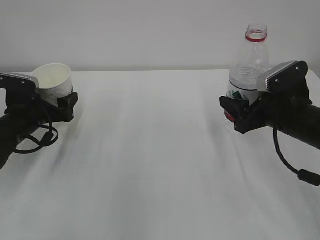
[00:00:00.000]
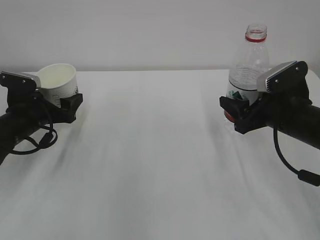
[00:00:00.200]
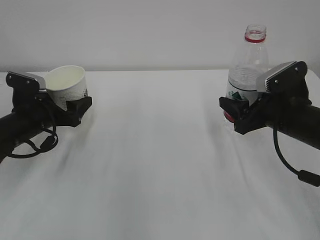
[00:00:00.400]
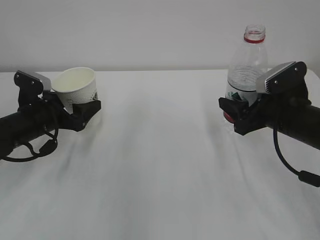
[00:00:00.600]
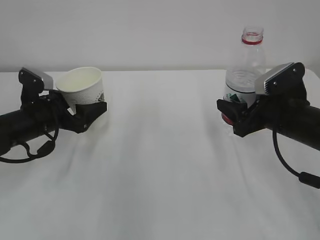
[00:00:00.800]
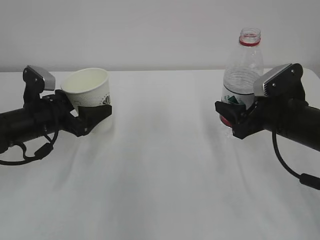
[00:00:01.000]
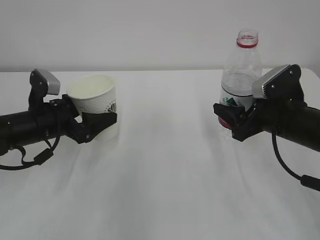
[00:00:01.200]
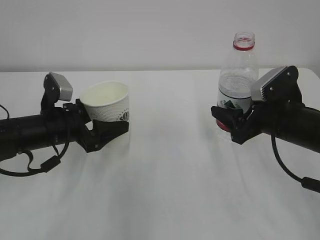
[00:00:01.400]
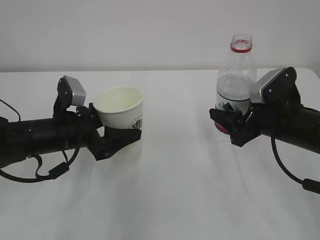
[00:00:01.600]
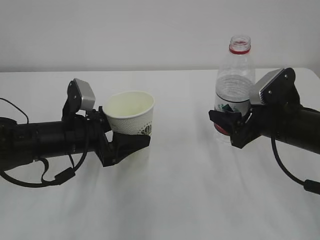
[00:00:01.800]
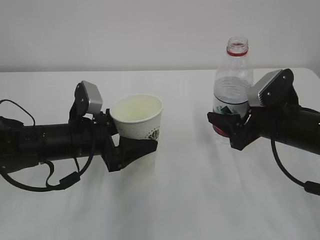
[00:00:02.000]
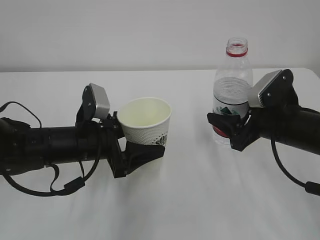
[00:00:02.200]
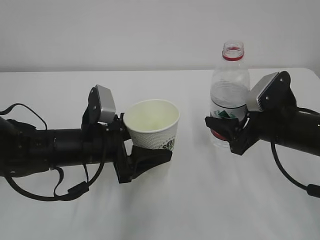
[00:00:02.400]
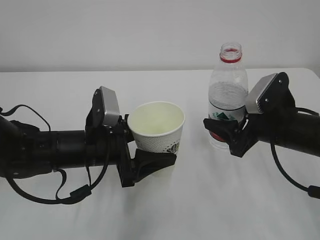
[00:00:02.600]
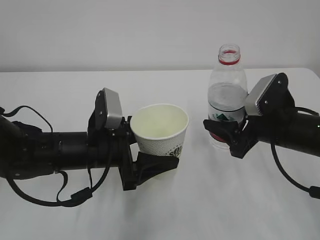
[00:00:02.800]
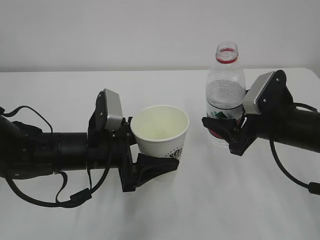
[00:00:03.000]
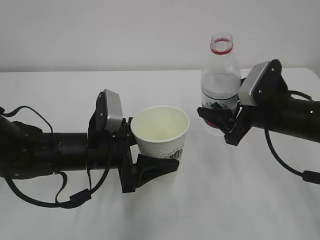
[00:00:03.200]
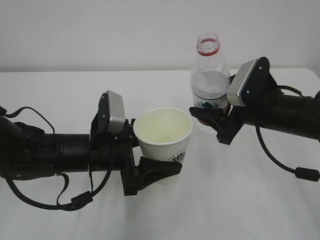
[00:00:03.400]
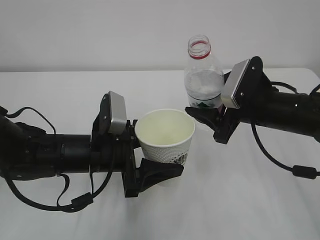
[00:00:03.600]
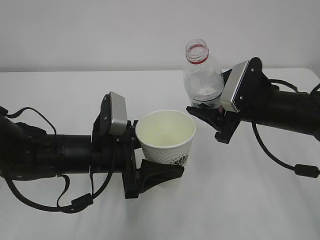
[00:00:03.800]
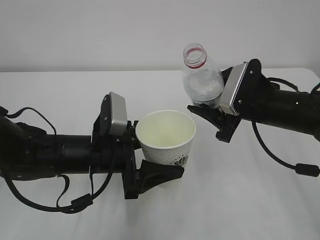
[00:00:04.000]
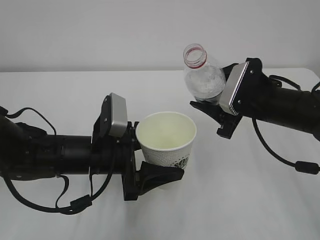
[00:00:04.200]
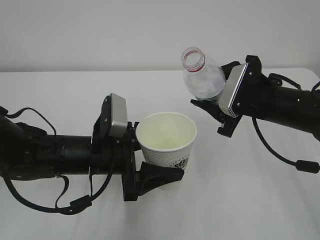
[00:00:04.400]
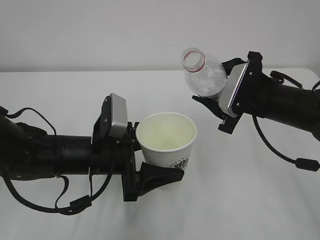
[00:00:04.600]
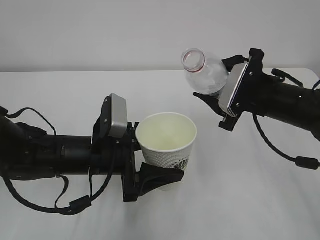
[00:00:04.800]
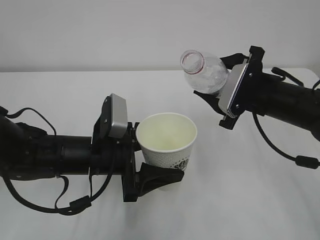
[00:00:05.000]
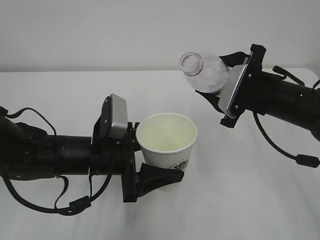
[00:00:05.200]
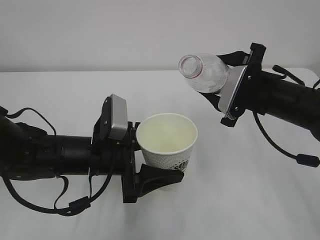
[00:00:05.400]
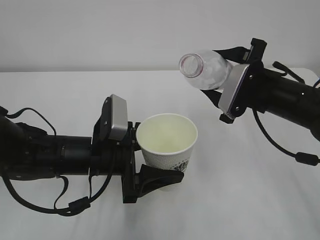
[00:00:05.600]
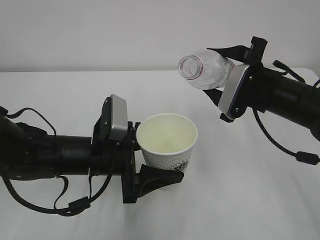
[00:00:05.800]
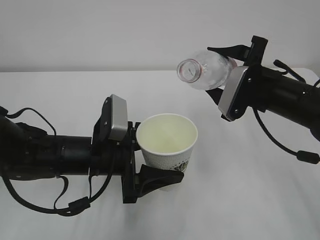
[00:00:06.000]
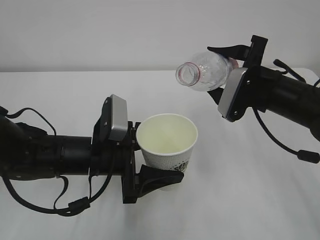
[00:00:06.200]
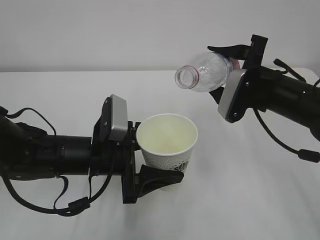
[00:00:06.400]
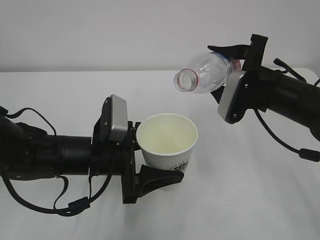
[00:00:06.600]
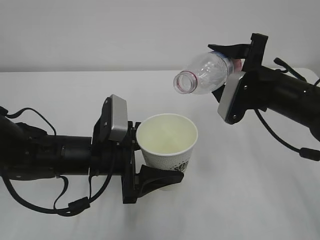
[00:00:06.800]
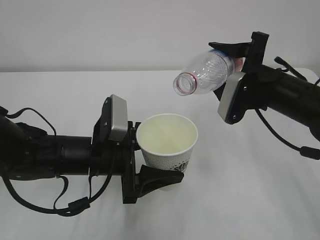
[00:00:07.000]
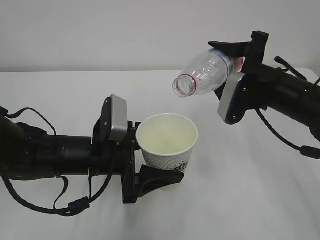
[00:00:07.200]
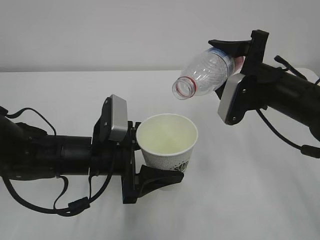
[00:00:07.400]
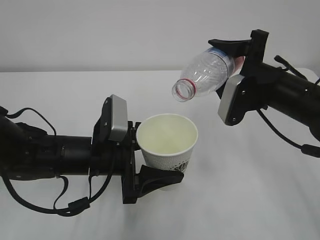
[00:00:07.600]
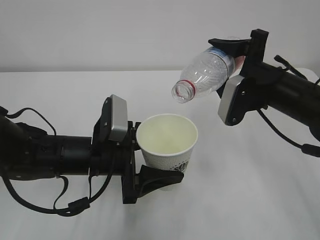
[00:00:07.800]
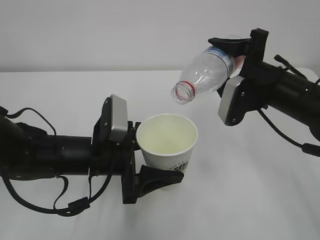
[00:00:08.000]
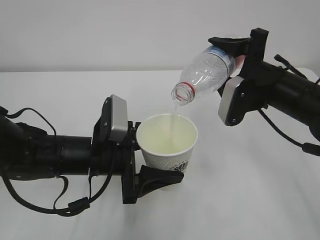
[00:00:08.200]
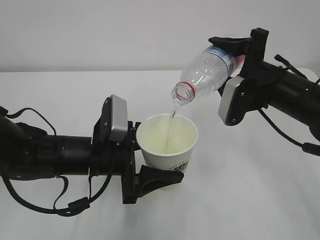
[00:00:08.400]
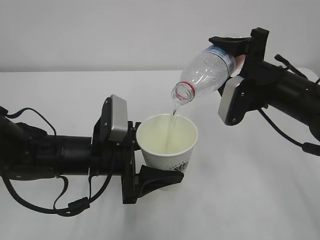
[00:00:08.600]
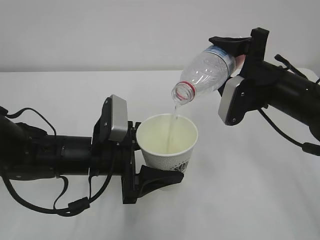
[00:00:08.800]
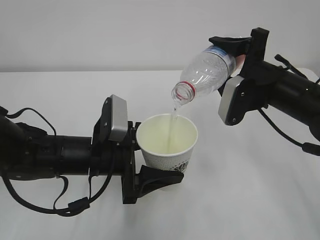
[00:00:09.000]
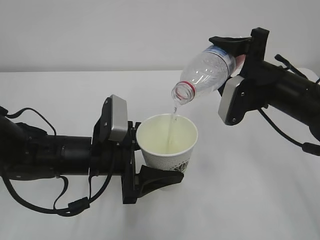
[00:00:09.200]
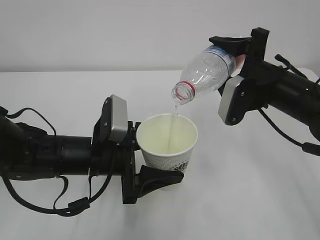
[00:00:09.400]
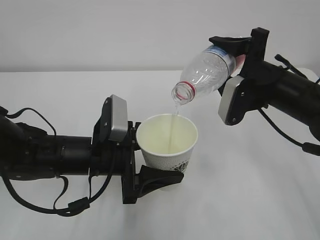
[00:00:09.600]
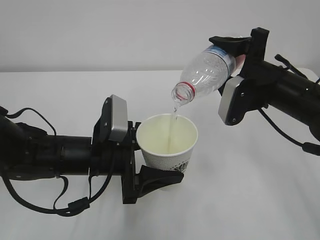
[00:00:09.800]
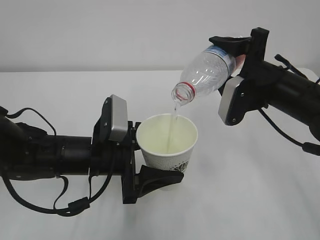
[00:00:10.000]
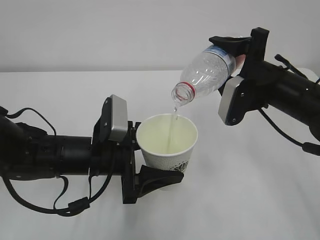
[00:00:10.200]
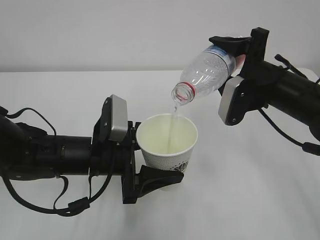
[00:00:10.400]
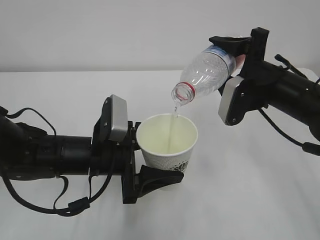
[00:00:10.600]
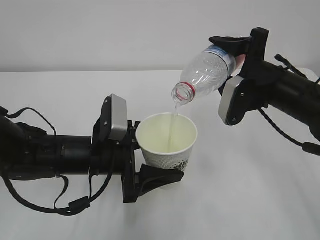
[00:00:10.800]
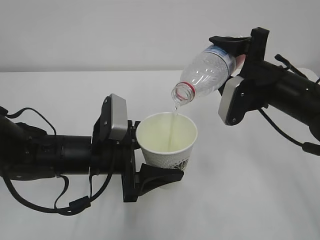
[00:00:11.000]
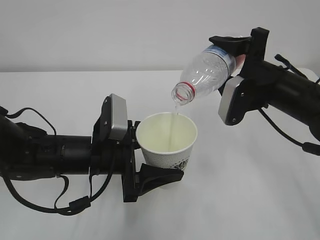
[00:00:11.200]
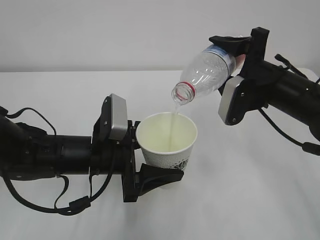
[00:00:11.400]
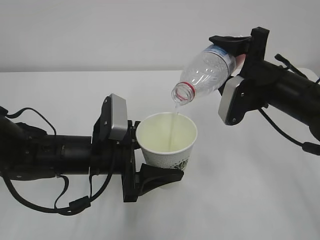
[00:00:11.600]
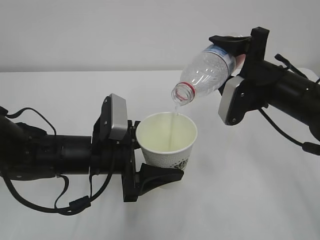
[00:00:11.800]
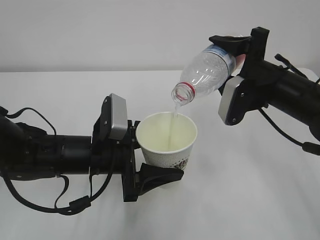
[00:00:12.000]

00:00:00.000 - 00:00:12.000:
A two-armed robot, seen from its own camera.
00:00:00.000 - 00:00:01.600: The left gripper goes approximately 10 cm to the right and backward.
00:00:01.600 - 00:00:03.000: The left gripper travels to the right by approximately 5 cm.
00:00:06.000 - 00:00:07.600: The grippers stay close to where they were, moving slightly.
00:00:07.600 - 00:00:10.400: Both grippers stay put.
00:00:10.400 - 00:00:12.000: Neither gripper changes place.

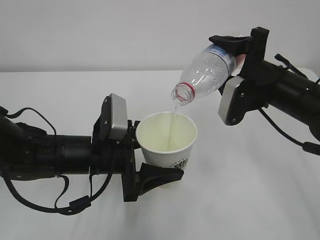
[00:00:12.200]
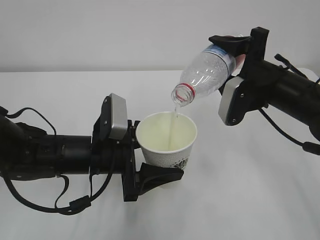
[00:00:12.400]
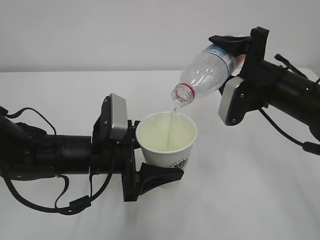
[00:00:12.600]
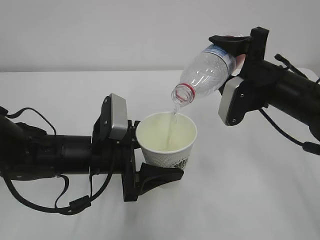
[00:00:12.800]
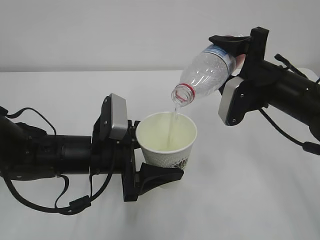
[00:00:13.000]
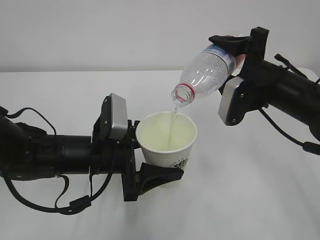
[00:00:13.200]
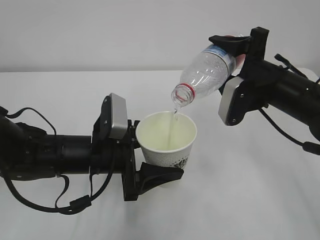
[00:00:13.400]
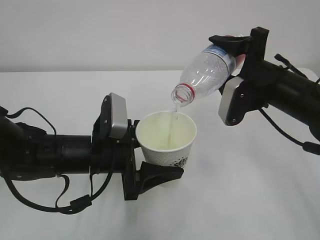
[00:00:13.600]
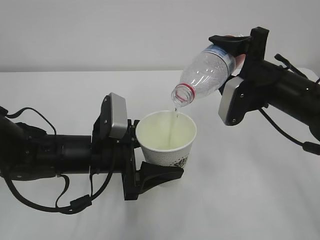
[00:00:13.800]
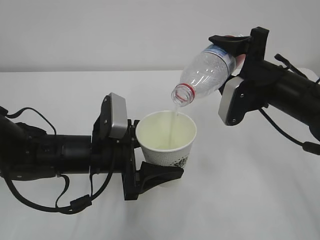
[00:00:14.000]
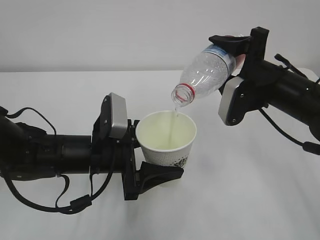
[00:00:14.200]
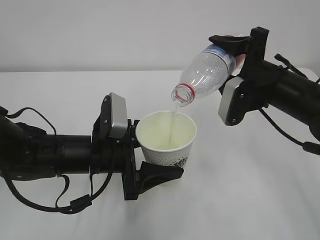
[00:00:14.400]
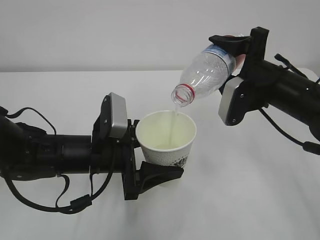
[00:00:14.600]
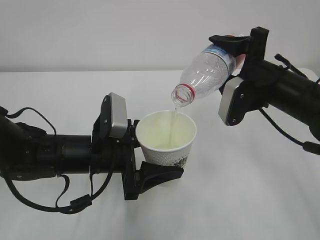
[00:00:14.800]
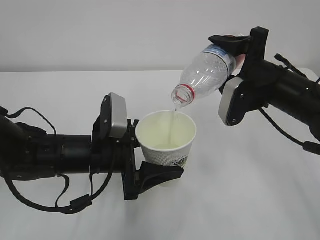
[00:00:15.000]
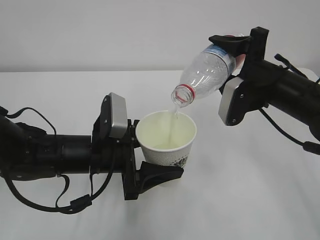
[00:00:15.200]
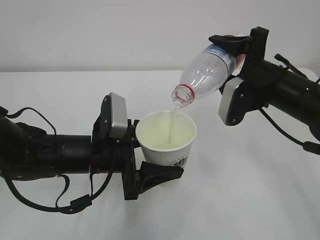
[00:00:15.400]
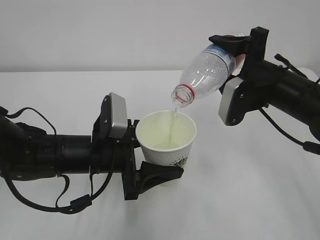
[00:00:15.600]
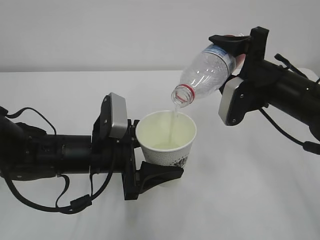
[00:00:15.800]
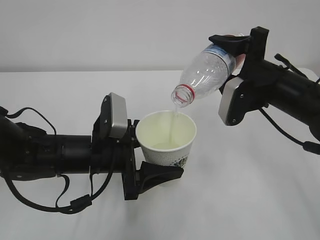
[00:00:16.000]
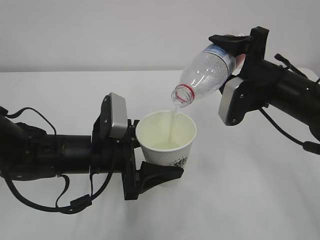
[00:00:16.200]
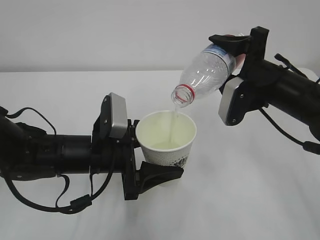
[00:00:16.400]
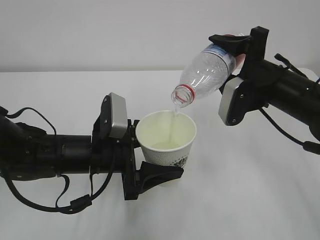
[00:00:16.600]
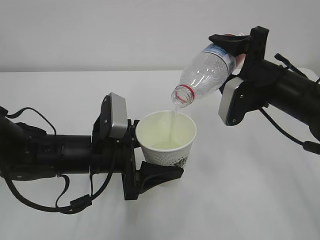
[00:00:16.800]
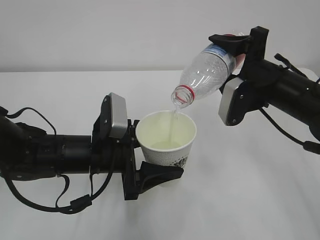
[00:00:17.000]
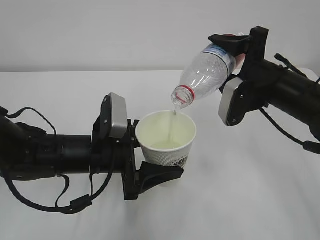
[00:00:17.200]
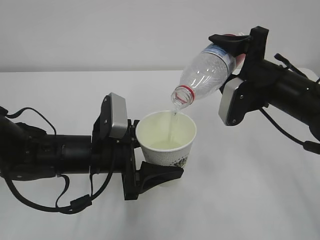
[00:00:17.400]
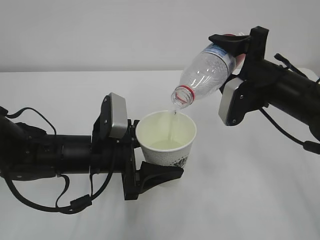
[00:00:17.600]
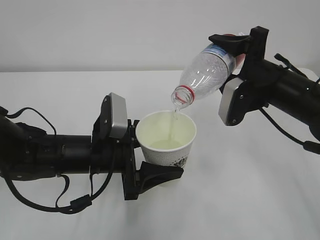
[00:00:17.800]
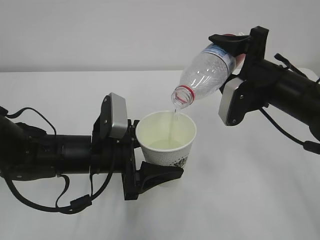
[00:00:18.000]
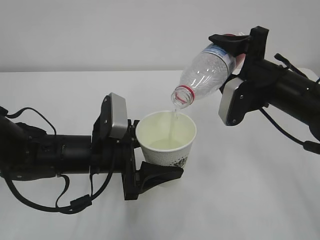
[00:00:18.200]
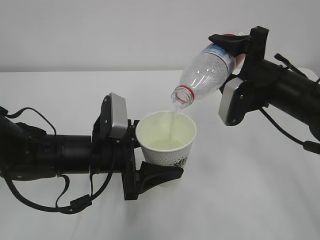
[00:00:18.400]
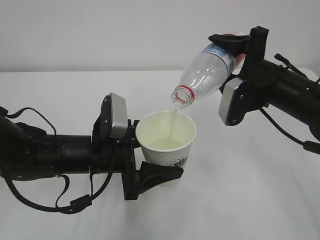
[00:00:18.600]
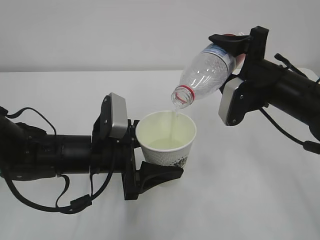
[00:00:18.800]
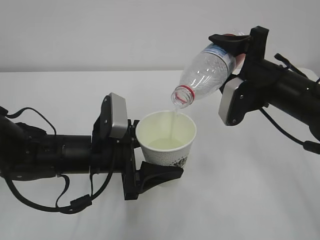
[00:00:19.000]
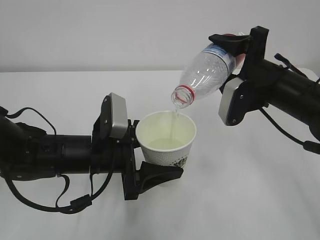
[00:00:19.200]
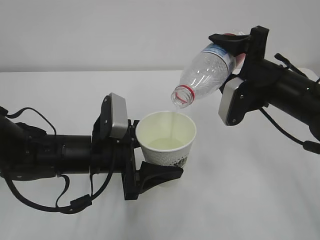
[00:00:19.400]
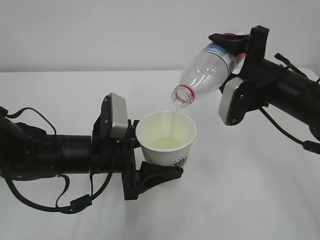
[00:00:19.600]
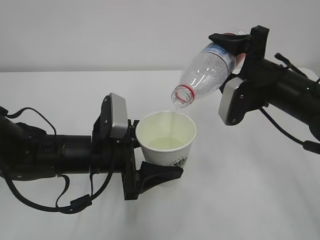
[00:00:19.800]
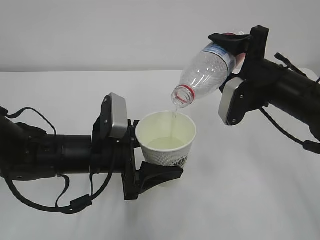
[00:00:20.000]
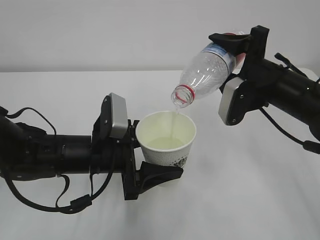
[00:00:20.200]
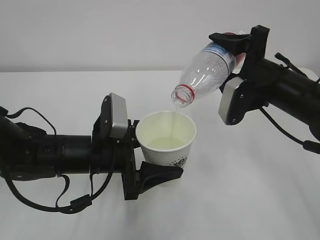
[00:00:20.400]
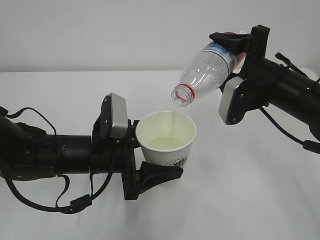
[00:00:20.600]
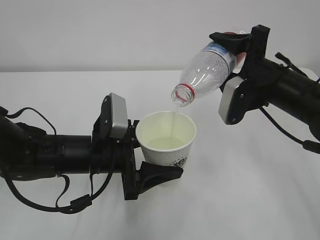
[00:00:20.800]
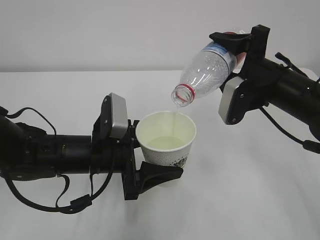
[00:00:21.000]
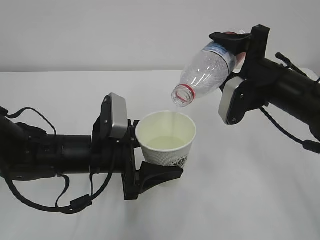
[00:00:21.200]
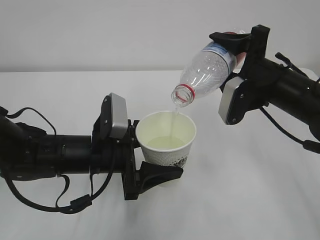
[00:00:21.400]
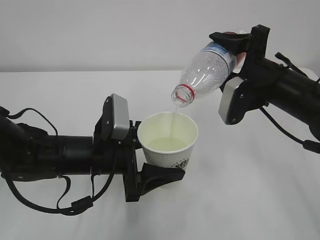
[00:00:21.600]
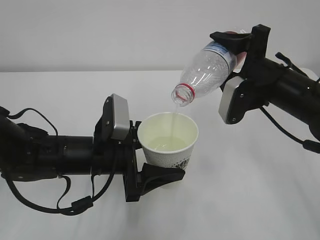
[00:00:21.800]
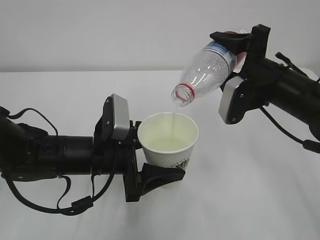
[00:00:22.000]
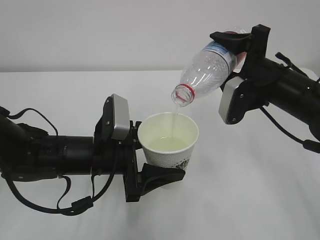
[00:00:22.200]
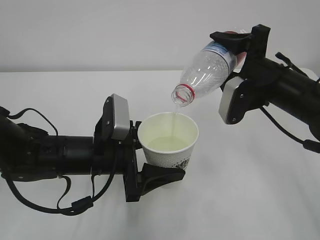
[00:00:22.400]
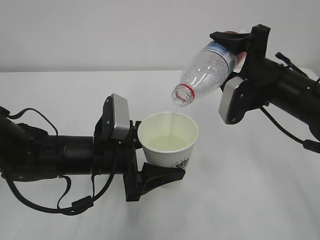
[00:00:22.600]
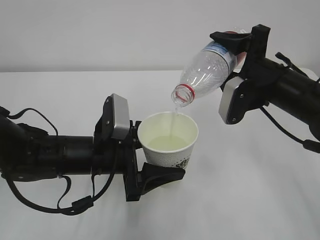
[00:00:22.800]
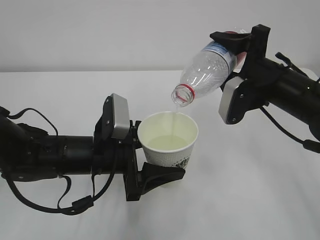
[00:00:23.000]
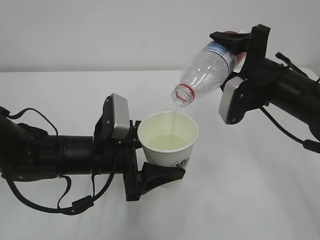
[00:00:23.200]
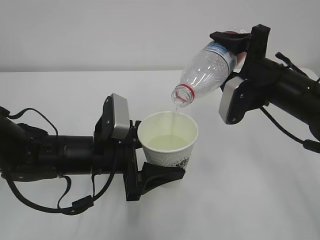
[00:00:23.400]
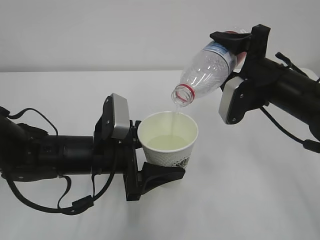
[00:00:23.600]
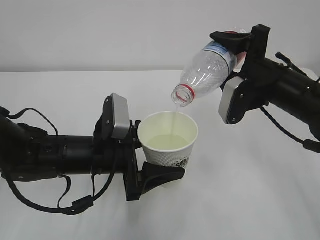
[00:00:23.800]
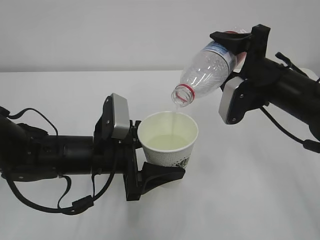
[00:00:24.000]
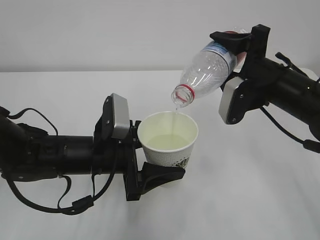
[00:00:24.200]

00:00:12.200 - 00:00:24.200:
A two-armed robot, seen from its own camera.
00:00:12.200 - 00:00:24.200: Both grippers stay put.
